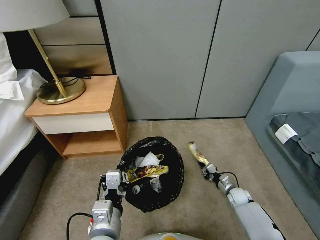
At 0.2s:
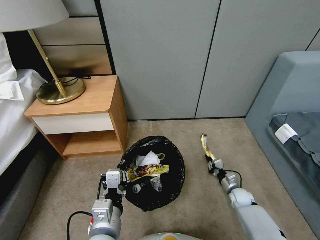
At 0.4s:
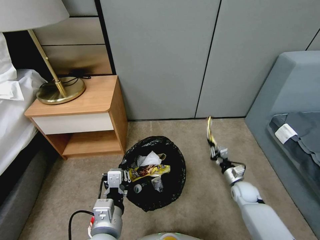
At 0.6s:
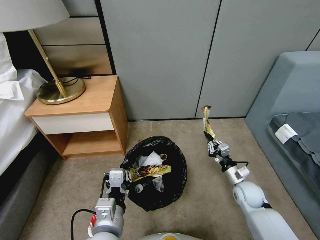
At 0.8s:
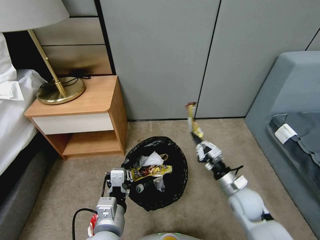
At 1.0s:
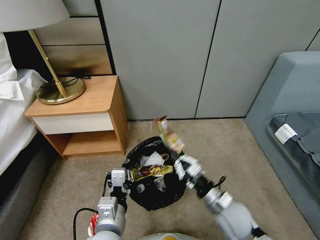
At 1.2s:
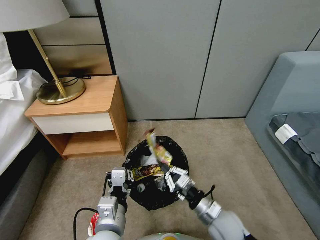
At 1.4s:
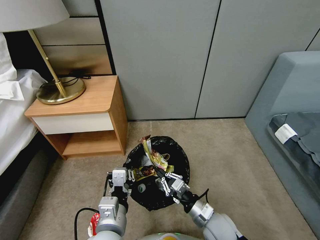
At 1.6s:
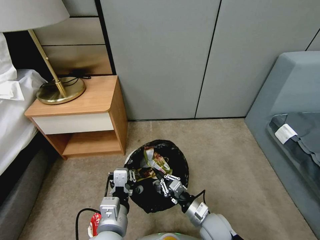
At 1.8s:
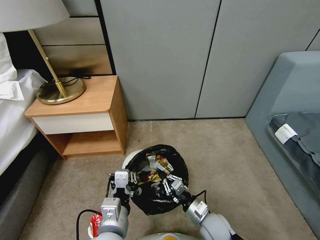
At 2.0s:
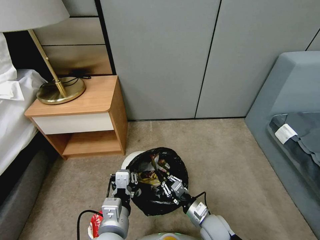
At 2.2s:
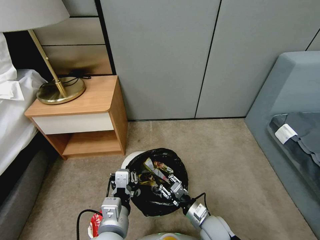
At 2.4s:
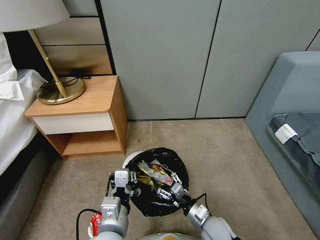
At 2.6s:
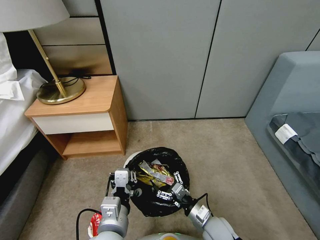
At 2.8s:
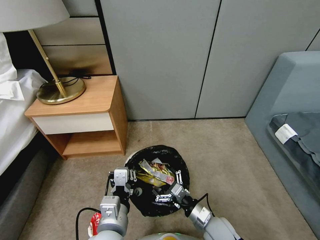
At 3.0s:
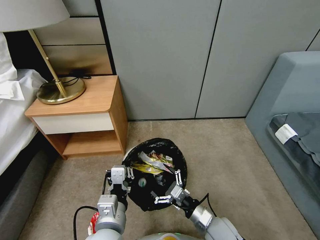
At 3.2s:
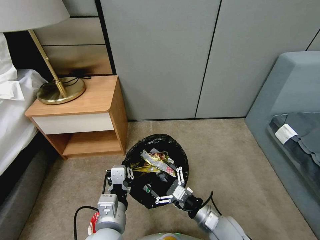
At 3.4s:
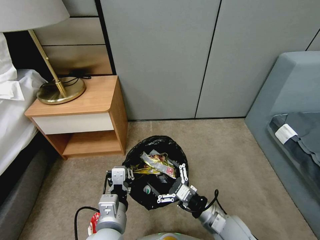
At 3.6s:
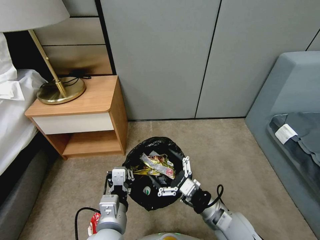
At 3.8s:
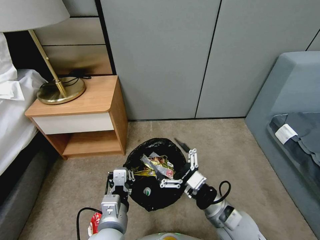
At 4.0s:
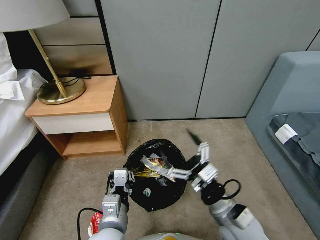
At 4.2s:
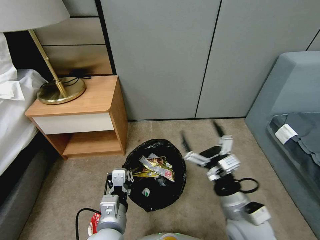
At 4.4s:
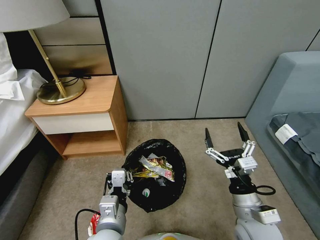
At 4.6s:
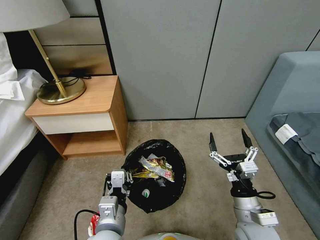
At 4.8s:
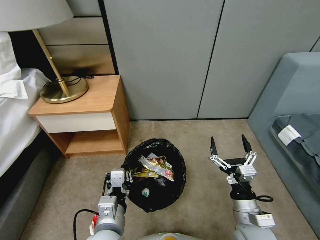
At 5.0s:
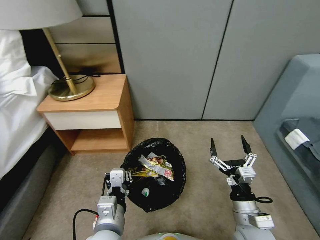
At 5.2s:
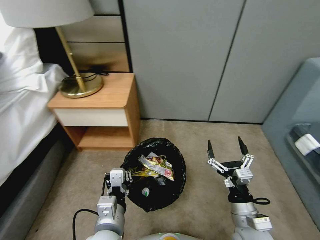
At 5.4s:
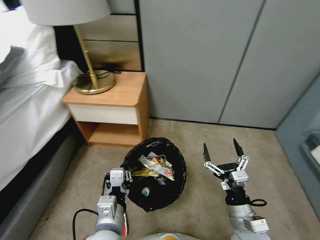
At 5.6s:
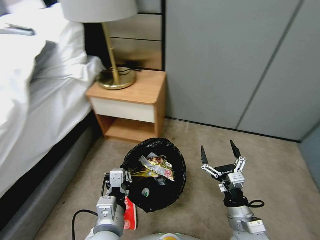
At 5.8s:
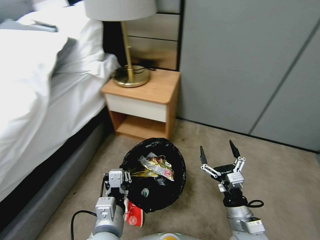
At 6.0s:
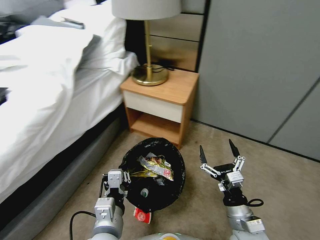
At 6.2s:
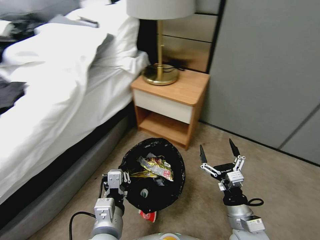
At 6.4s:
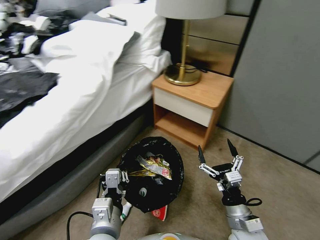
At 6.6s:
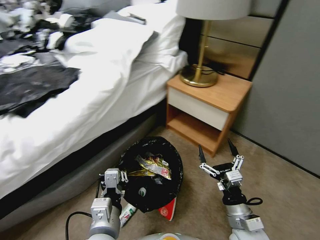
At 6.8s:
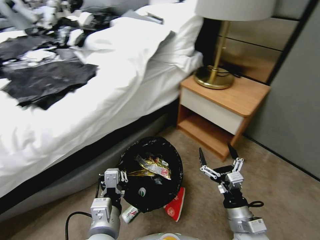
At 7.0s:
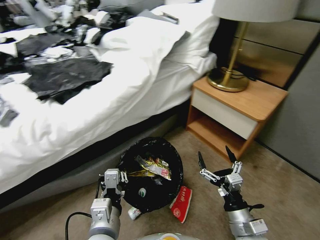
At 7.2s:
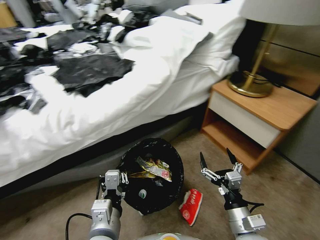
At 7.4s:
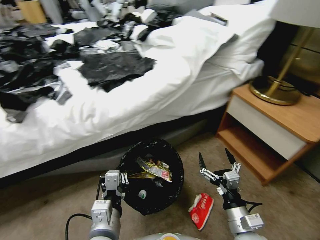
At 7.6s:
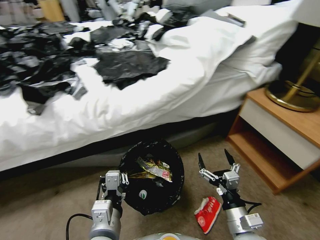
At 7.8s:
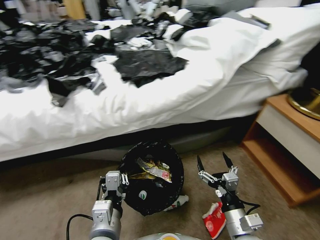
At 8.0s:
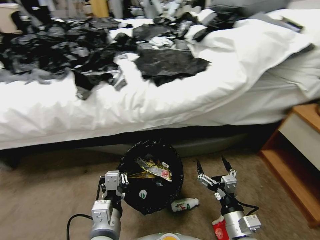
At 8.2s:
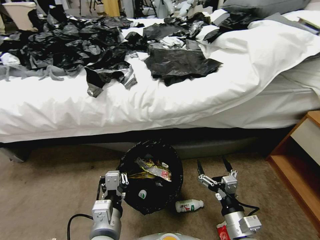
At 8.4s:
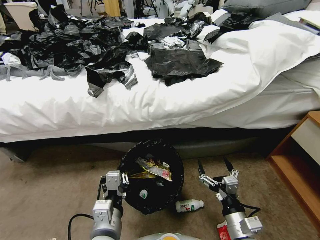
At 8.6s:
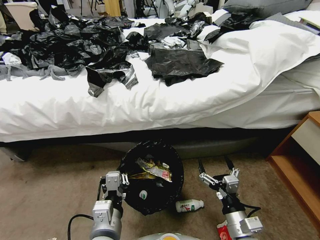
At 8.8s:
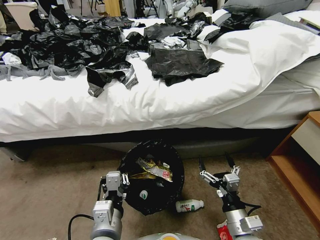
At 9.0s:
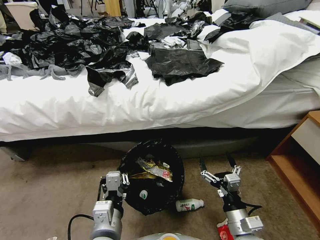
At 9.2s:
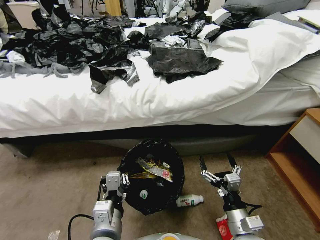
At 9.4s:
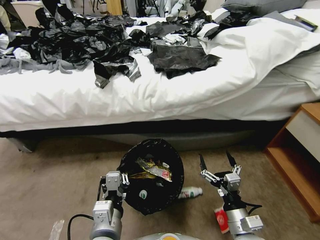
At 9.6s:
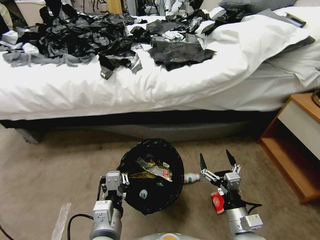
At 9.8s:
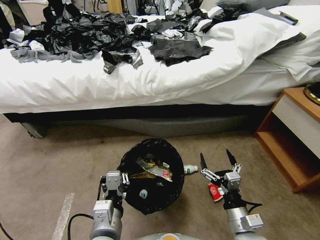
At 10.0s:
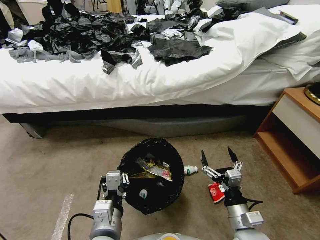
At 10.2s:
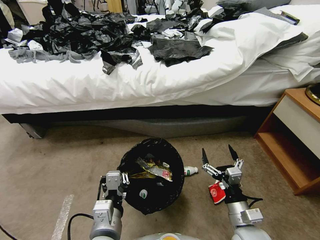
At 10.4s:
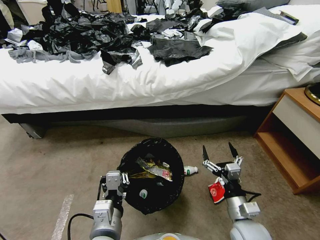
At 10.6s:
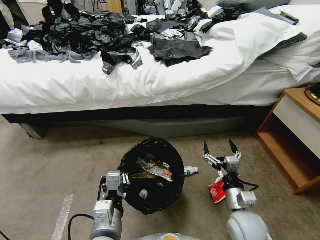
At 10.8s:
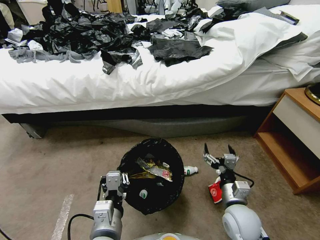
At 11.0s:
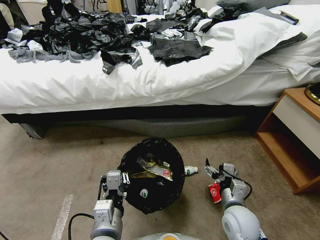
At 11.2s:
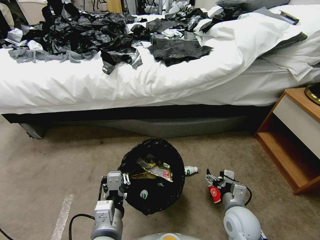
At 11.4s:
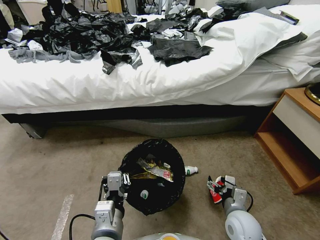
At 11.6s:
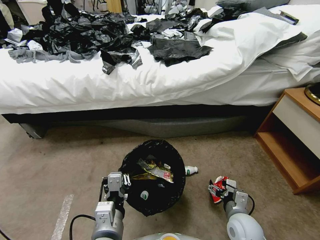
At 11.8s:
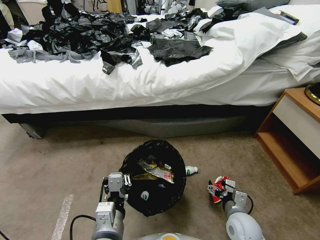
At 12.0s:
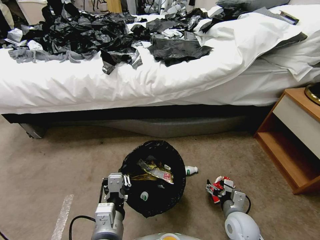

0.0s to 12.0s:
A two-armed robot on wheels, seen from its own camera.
Task of the whole recording: Pick up the trash bin, then pick up the garbage from the floor and place it into the trash bin.
0.0s to 1.6s: The right gripper is displaced to the left, upward and backward by about 30 cm.
1.6s to 3.0s: The right gripper opens its fingers.
3.0s to 4.4s: The right gripper moves upward, about 15 cm.
4.4s to 6.0s: The right gripper goes about 5 cm downward.
10.4s to 12.0s: The right gripper heads downward, covering roughly 5 cm.

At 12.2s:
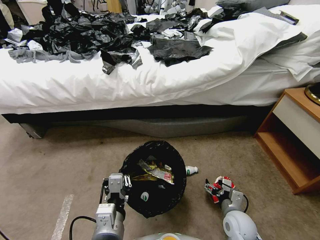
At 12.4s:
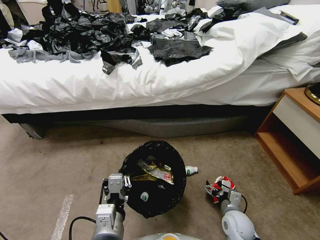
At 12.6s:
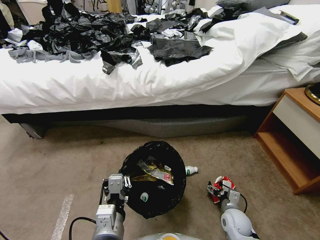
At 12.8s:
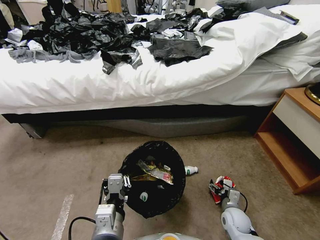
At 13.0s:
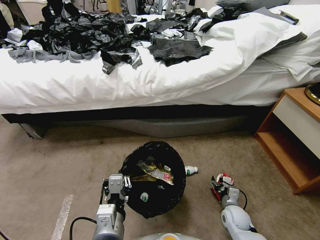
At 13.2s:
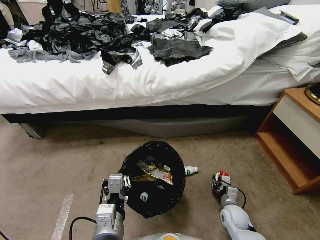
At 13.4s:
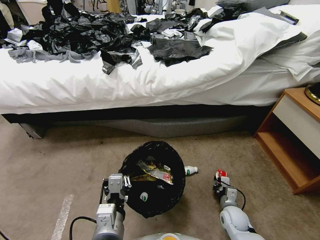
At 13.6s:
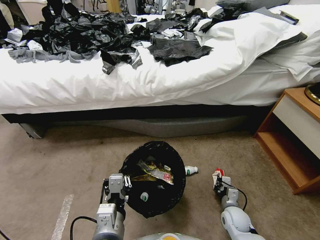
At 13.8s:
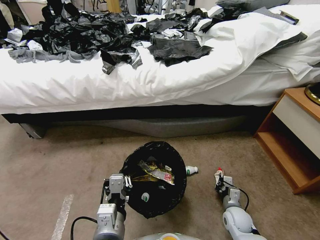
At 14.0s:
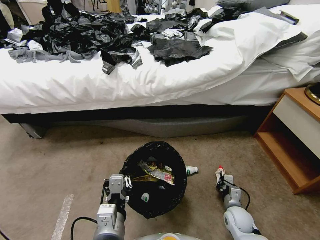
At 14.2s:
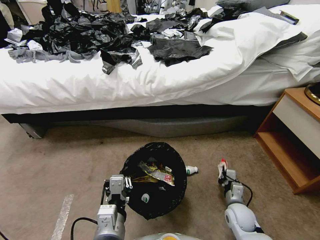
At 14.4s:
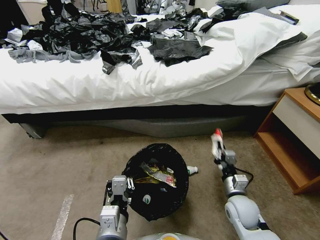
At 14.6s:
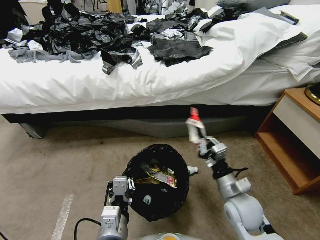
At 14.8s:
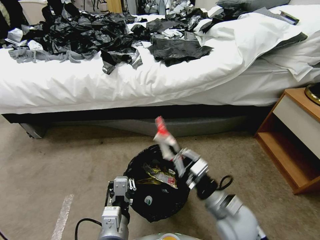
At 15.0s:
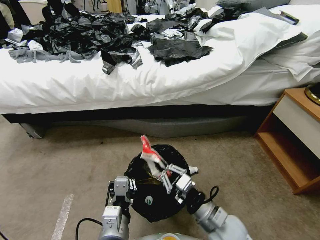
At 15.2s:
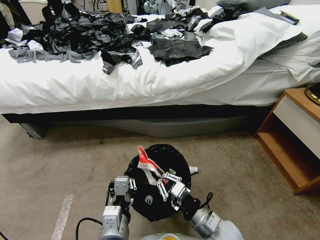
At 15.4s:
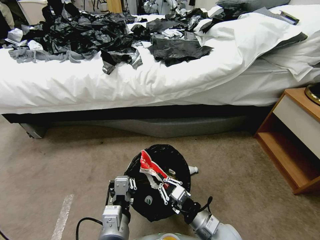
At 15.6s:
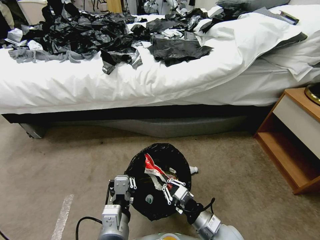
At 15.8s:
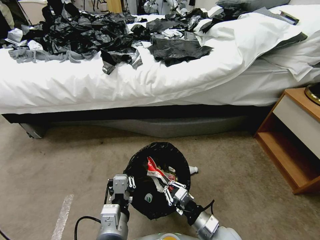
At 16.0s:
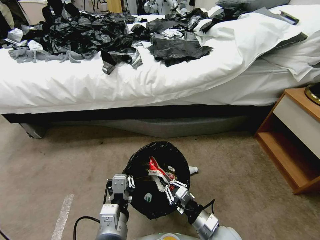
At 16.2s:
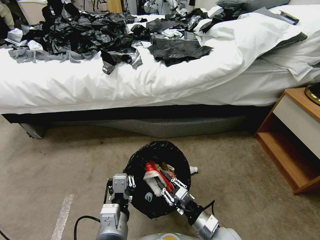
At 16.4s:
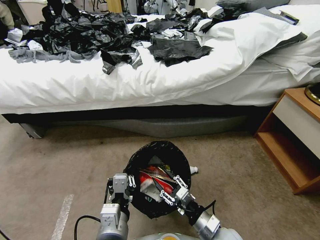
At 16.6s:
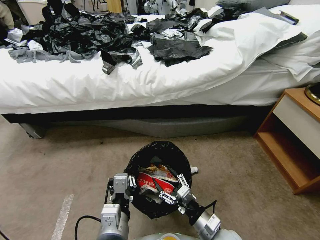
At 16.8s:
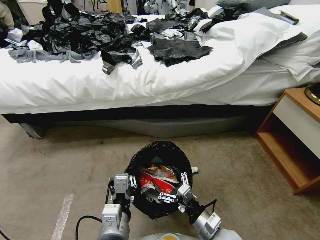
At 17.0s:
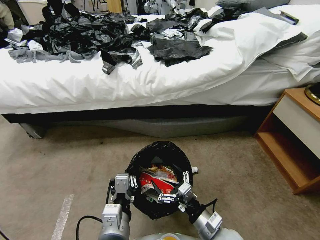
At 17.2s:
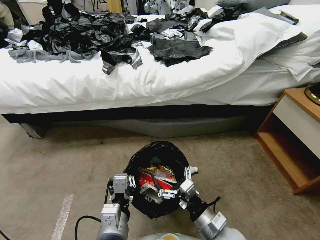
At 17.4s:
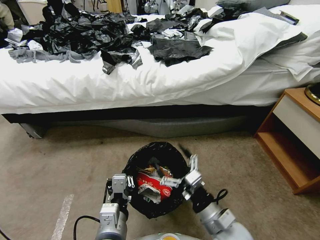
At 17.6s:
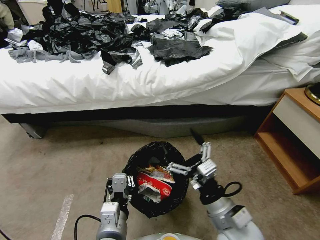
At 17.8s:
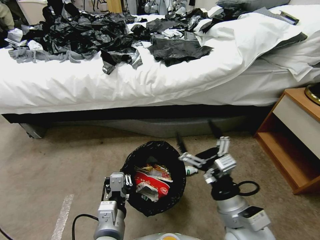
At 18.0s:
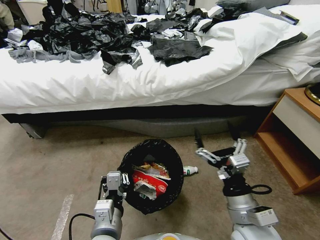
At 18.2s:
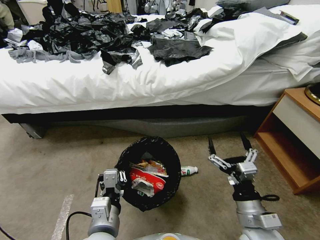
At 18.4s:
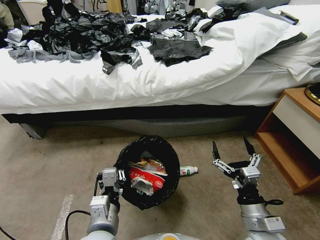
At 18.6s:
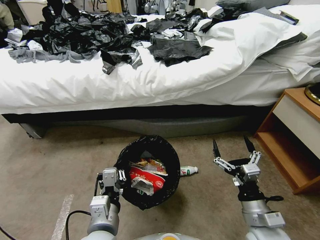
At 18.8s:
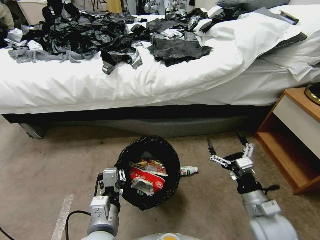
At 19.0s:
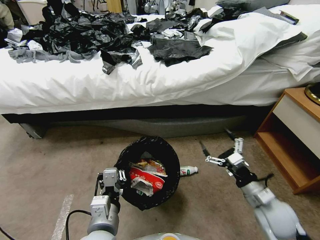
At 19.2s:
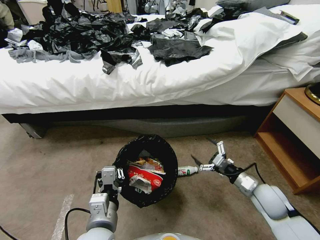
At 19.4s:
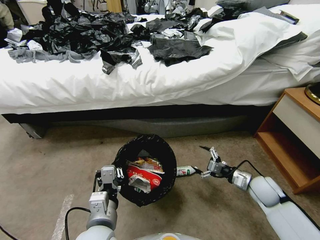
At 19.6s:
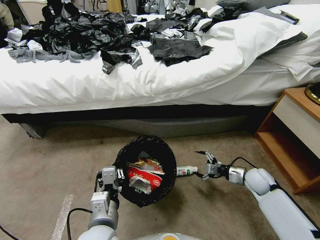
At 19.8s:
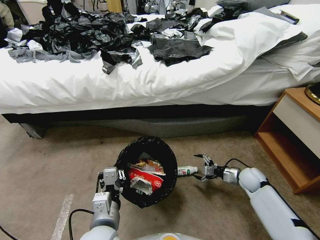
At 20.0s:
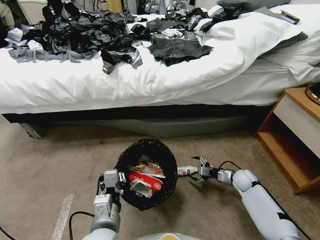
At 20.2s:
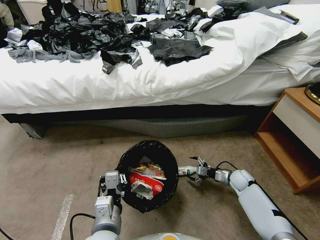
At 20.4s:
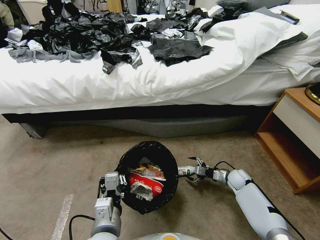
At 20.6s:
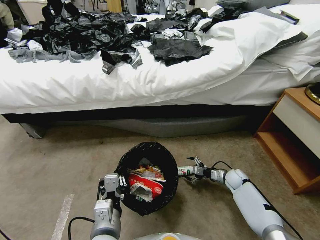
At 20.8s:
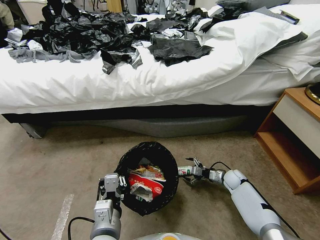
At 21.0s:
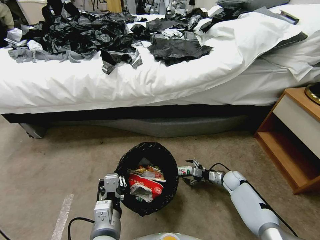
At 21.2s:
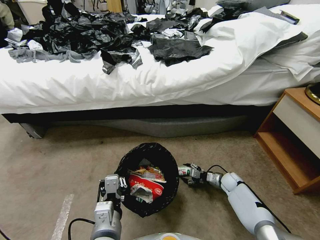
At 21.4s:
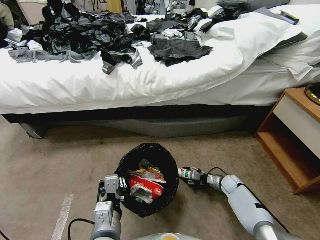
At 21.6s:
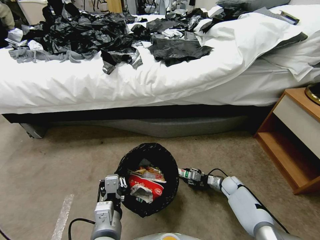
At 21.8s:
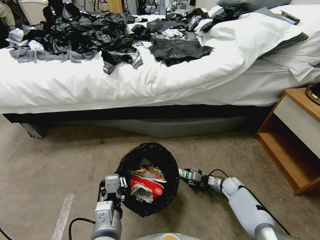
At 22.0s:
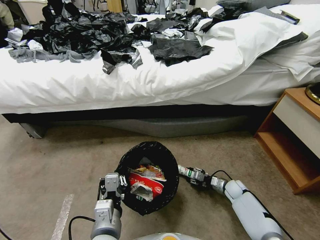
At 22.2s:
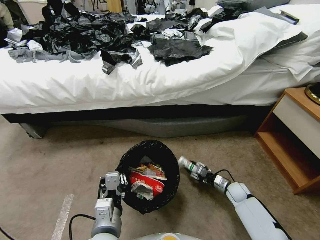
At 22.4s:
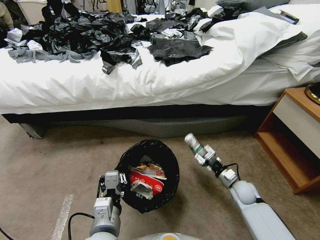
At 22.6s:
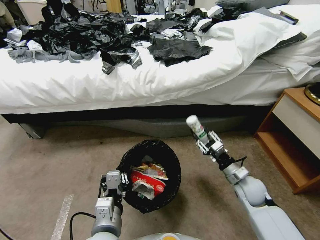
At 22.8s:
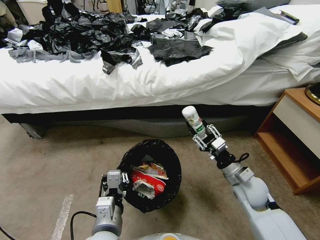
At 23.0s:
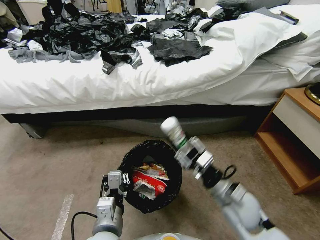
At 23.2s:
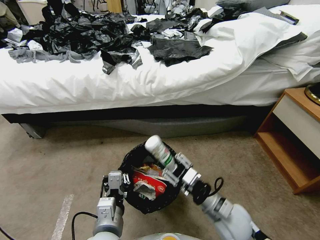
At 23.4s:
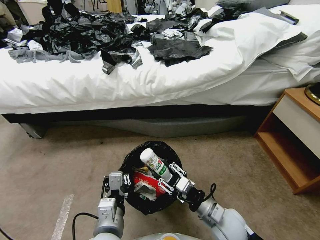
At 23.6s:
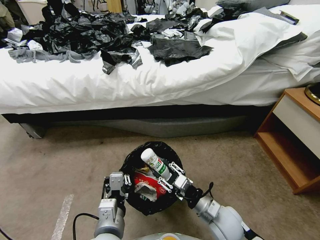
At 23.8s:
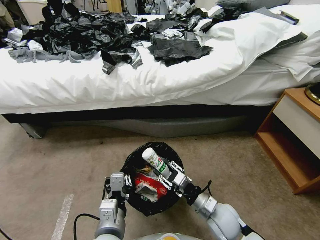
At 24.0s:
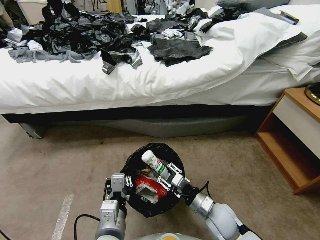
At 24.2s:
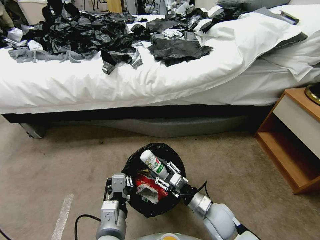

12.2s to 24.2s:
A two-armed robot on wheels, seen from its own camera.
Task of the whole recording: Pick up the trash bin, then pick up the garbage from the floor and place it into the trash bin.
12.2s to 13.8s: The right gripper is displaced downward by roughly 5 cm, and closes up.
13.8s to 15.2s: The right gripper travels upward, to the left and backward by roughly 20 cm.
15.2s to 16.6s: The right gripper opens.
16.6s to 18.2s: The right gripper heads upward and to the right, covering roughly 10 cm.
18.2s to 19.8s: The right gripper shifts approximately 30 cm forward, downward and to the right.
19.8s to 21.2s: The right gripper is displaced downward by approximately 10 cm.
21.2s to 22.6s: The right gripper travels upward and backward by some 15 cm, and closes its fingers.
22.6s to 24.2s: The right gripper is displaced to the left and backward by some 15 cm.
